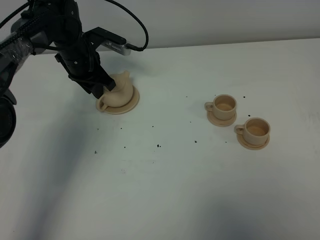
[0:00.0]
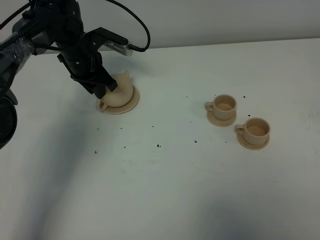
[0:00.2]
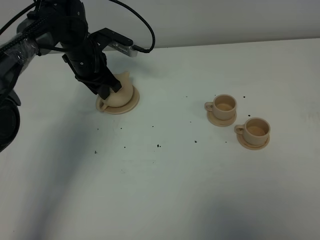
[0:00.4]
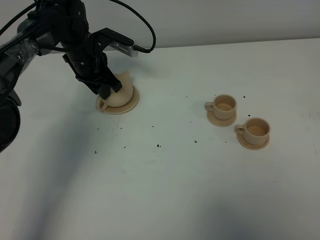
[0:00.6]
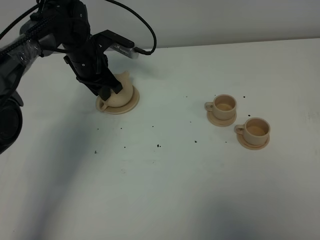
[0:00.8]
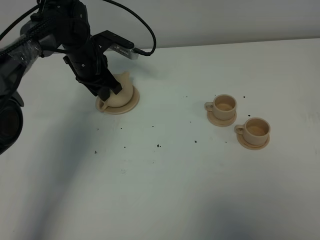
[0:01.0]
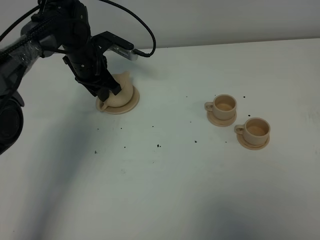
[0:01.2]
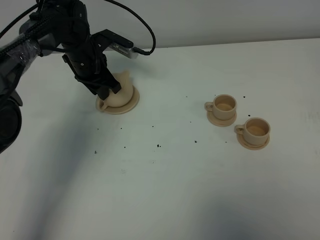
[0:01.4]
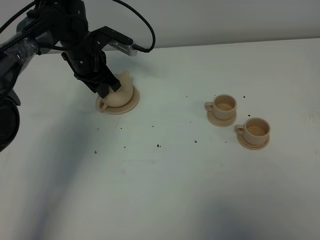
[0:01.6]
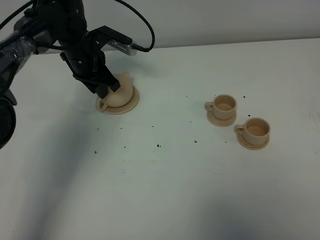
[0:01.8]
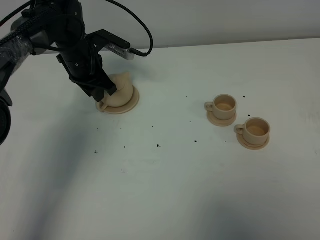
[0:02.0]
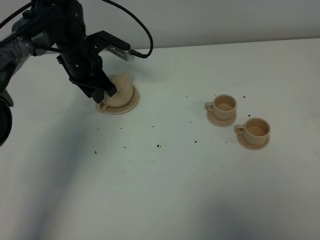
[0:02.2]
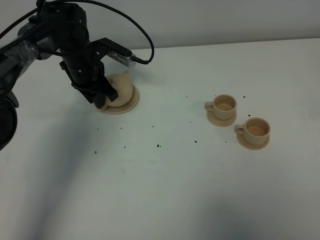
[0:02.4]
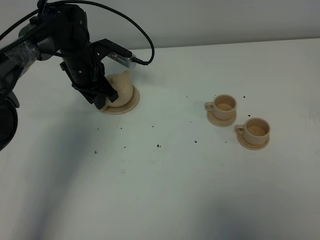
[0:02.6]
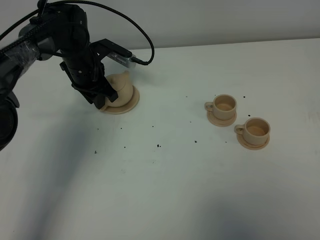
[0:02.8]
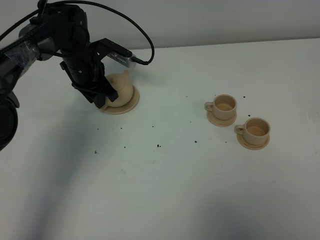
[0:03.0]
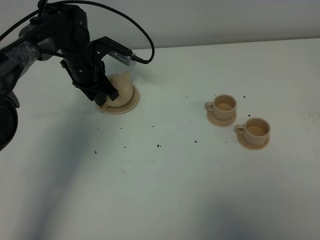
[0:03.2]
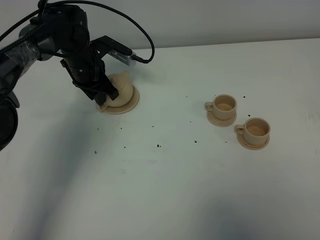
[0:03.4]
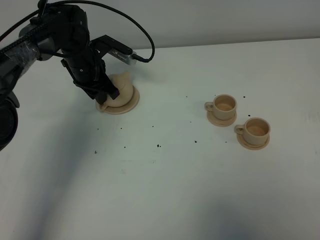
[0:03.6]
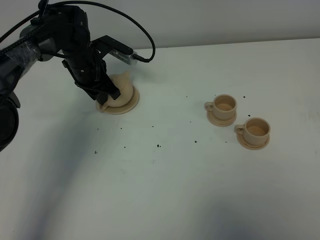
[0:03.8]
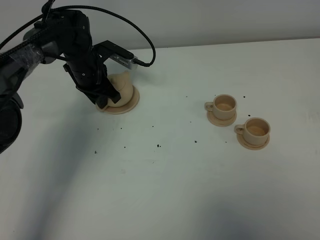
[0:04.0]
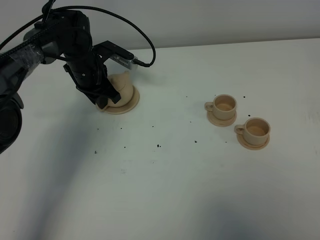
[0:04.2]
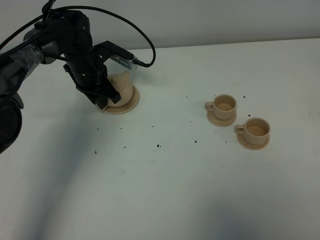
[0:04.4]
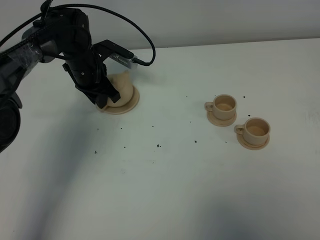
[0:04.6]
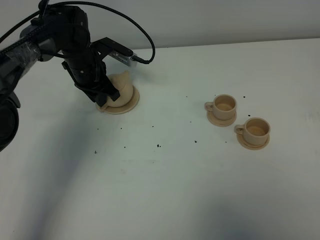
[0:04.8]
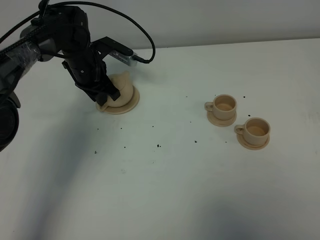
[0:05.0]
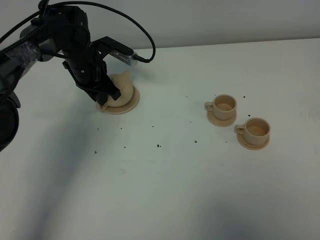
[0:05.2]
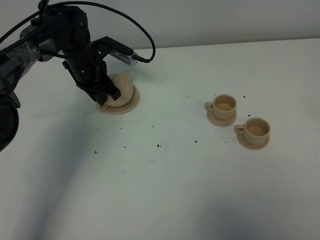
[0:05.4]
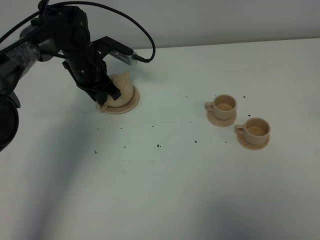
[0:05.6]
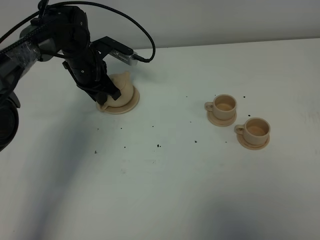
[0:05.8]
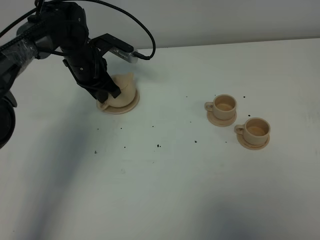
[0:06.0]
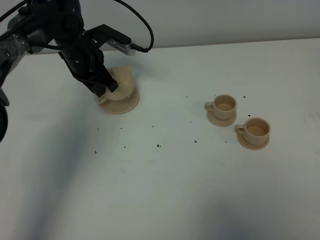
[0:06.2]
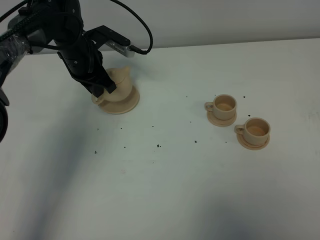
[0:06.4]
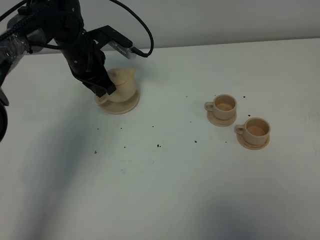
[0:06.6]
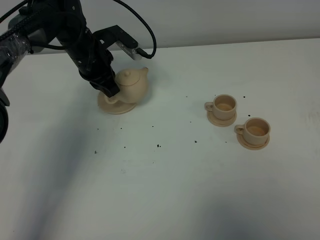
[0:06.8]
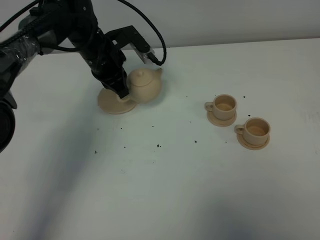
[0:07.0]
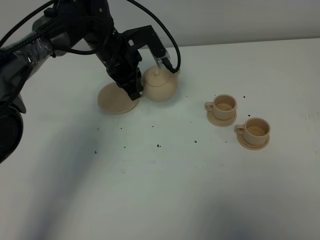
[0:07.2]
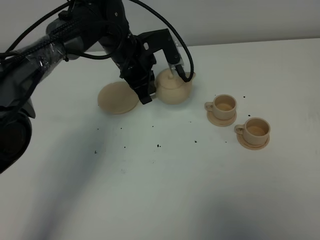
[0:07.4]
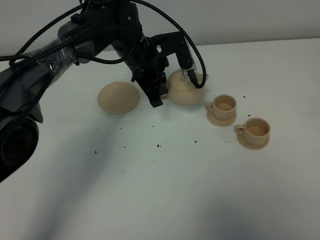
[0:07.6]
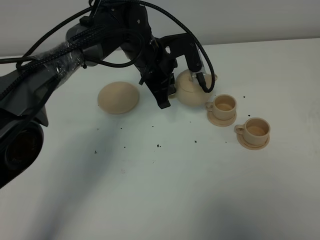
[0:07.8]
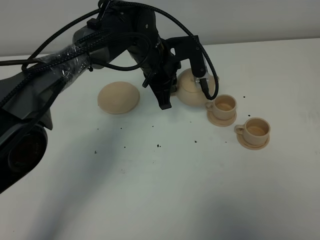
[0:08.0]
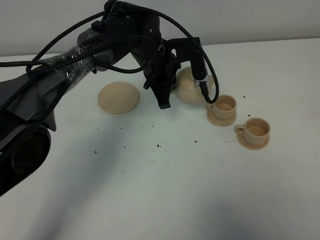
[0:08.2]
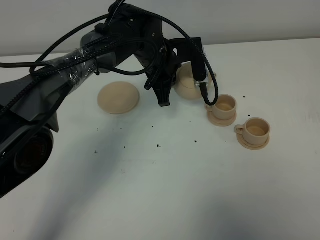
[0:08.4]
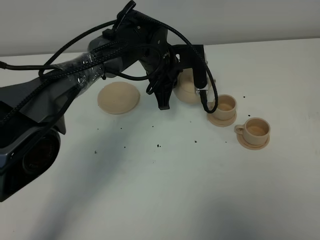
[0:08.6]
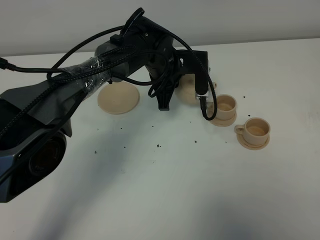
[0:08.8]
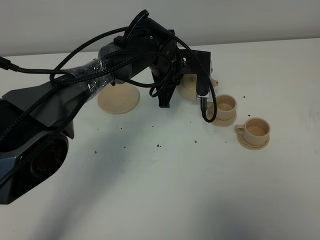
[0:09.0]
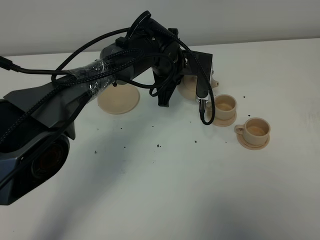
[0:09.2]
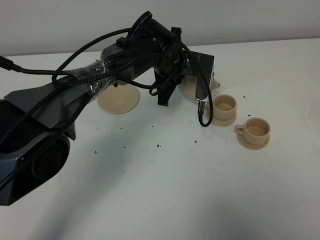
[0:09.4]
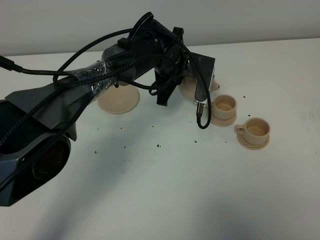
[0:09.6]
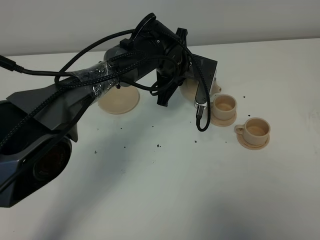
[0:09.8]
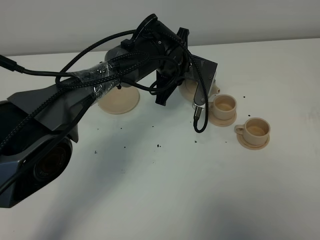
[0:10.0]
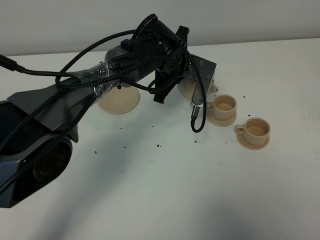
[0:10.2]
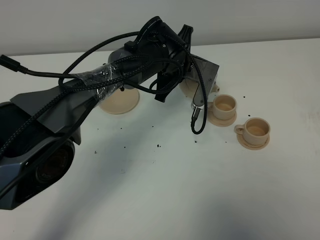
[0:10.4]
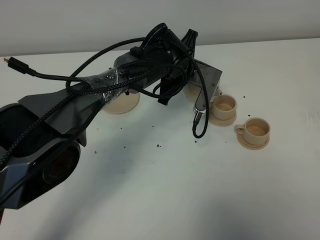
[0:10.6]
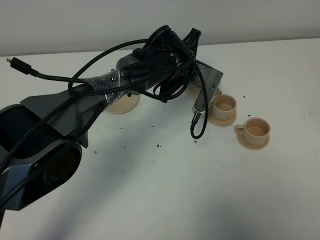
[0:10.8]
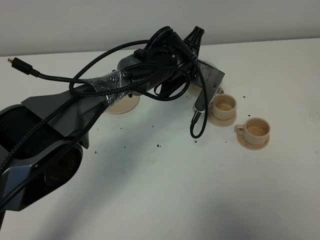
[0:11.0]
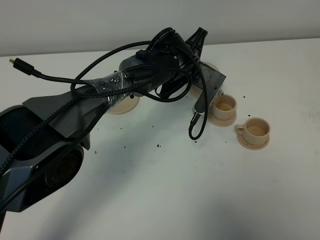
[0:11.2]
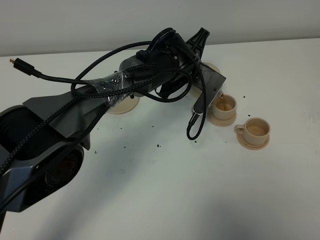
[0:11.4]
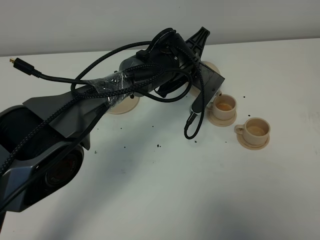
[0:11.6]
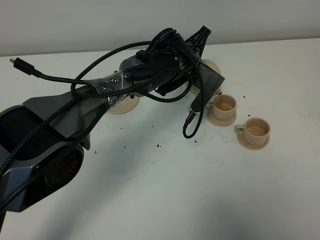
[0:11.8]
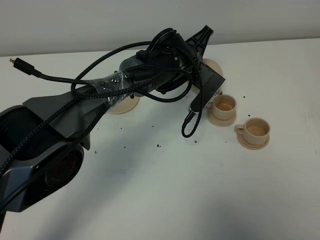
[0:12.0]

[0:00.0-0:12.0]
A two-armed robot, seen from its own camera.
Task of the whole recording: grasp the brown teapot and pour the tea into the two brown teacups one by one, put the brown teapot back in its original place.
Step, 0:00.0 to 0:06.0: Pick up the teapot with the left gripper.
0:00.0 to 0:03.0: The grippers make only small movements.
0:03.0 to 0:04.4: Neither gripper changes place.
0:04.4 to 0:06.0: The left gripper closes up.
0:06.0 to 0:07.6: The left gripper moves to the right, some 10 cm.
0:07.6 to 0:09.0: The left gripper changes place by roughly 5 cm.
0:10.4 to 0:12.0: The grippers move only a little.

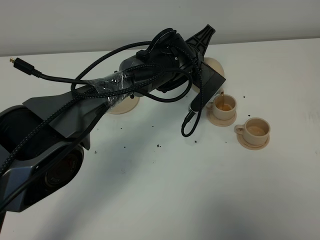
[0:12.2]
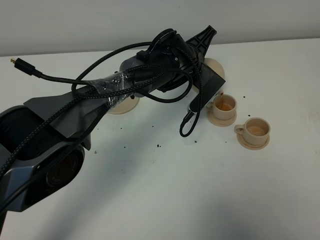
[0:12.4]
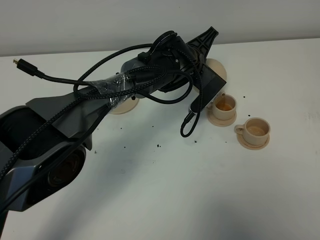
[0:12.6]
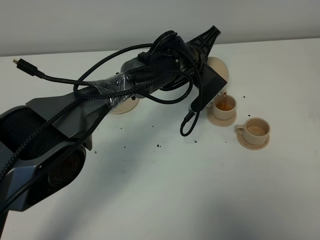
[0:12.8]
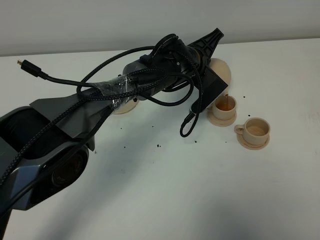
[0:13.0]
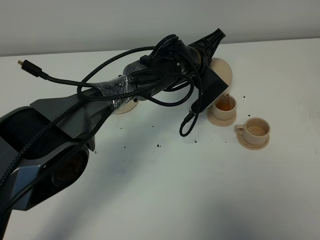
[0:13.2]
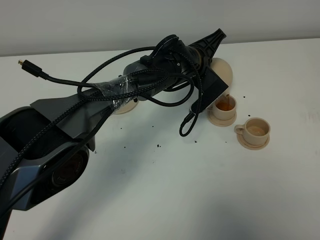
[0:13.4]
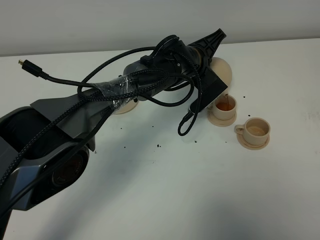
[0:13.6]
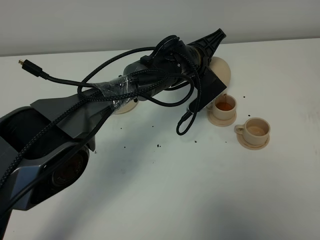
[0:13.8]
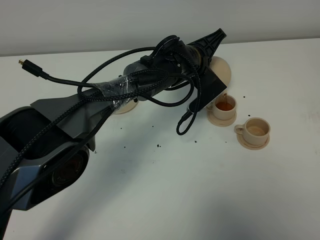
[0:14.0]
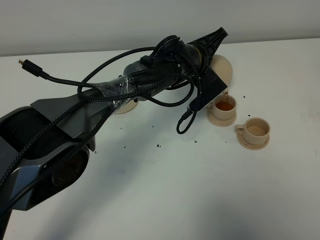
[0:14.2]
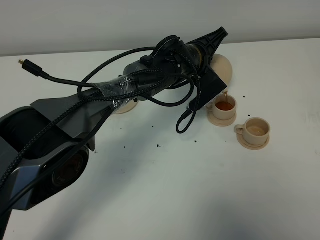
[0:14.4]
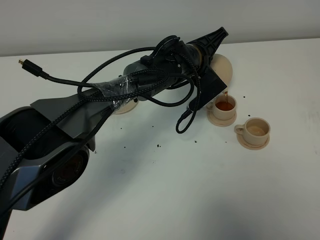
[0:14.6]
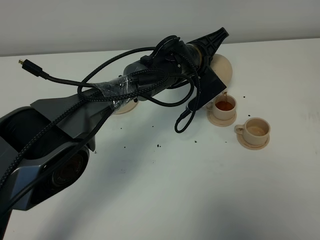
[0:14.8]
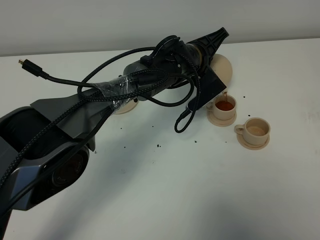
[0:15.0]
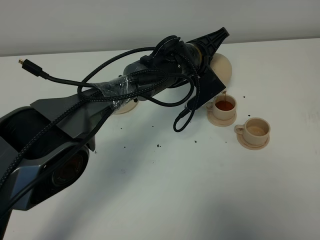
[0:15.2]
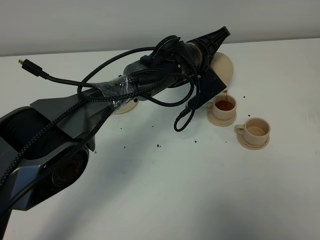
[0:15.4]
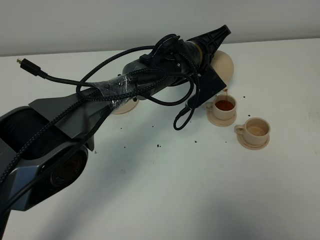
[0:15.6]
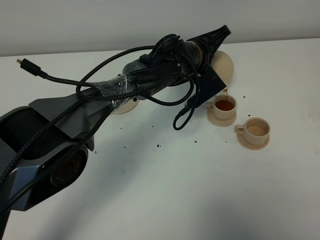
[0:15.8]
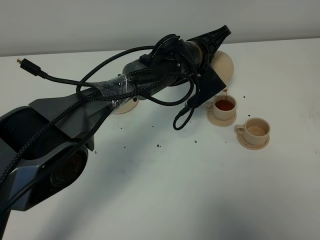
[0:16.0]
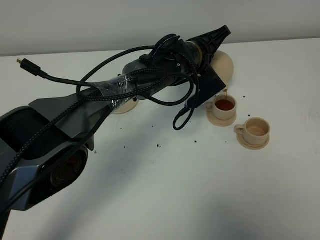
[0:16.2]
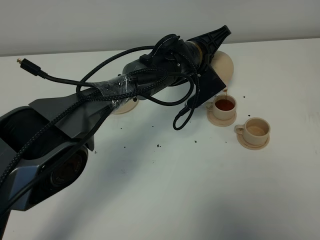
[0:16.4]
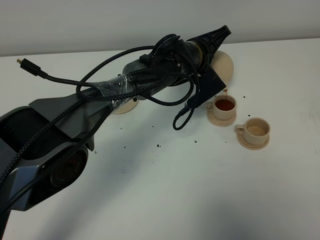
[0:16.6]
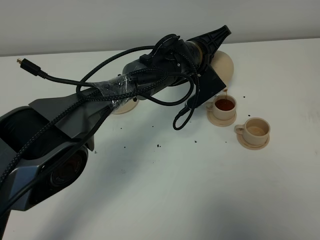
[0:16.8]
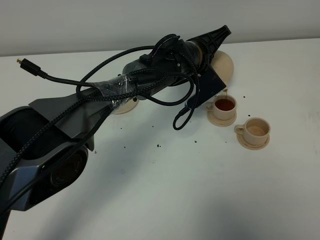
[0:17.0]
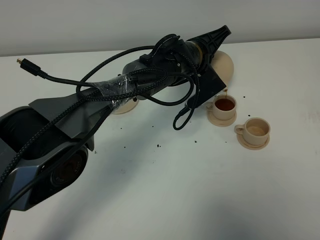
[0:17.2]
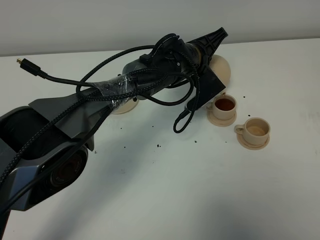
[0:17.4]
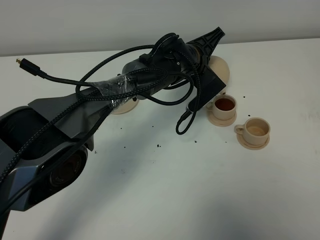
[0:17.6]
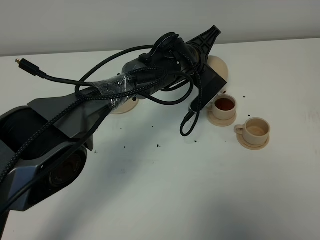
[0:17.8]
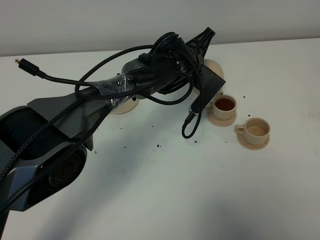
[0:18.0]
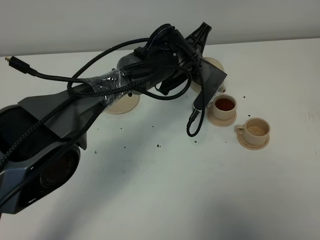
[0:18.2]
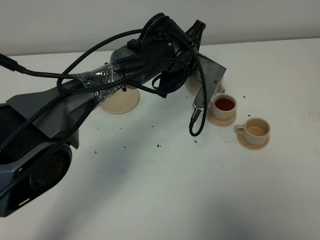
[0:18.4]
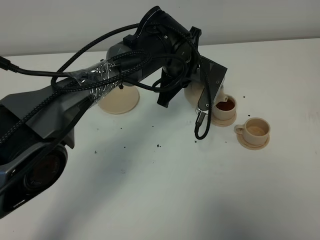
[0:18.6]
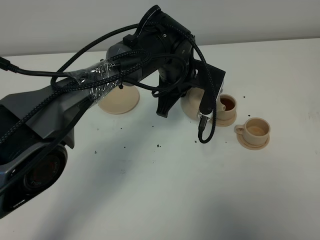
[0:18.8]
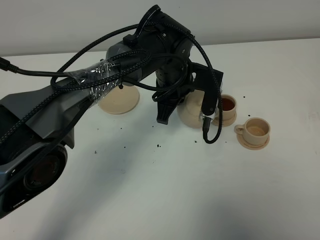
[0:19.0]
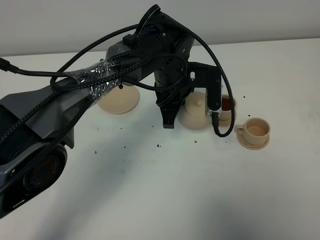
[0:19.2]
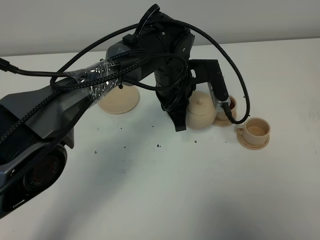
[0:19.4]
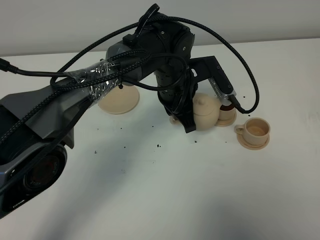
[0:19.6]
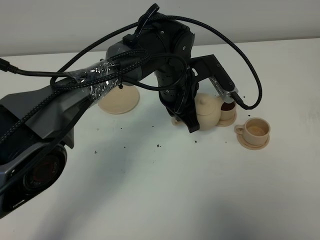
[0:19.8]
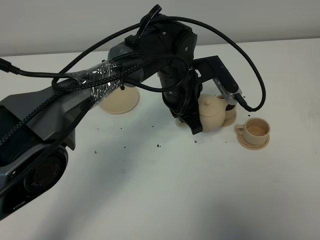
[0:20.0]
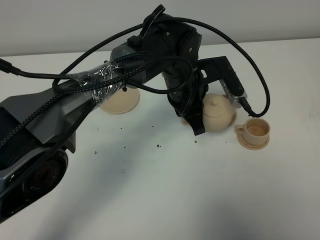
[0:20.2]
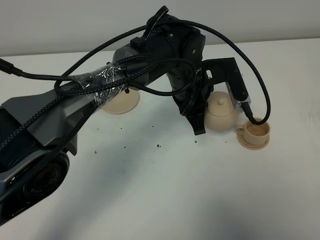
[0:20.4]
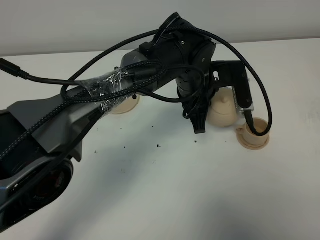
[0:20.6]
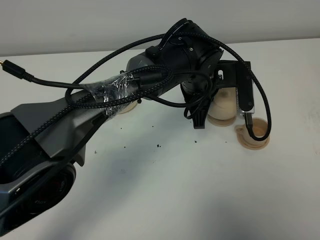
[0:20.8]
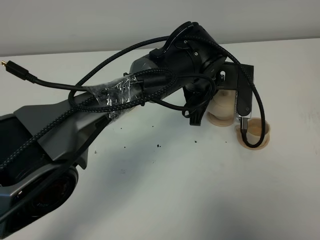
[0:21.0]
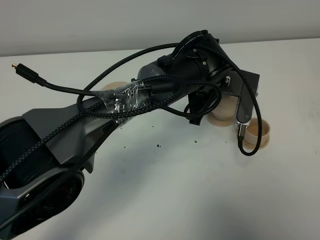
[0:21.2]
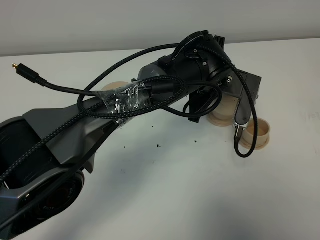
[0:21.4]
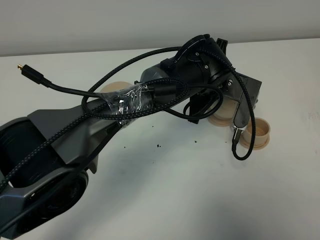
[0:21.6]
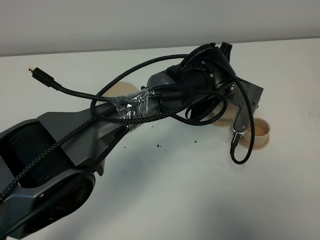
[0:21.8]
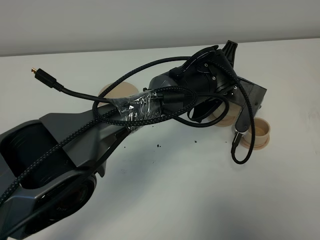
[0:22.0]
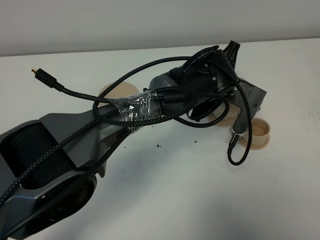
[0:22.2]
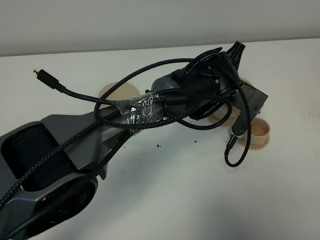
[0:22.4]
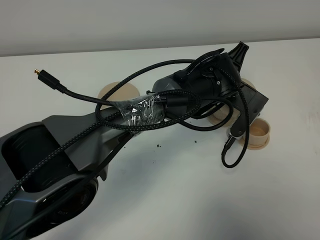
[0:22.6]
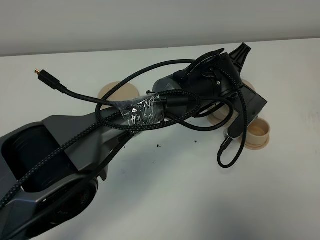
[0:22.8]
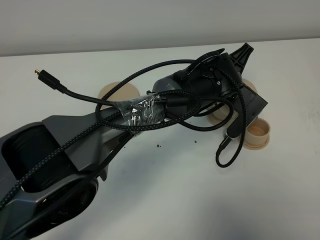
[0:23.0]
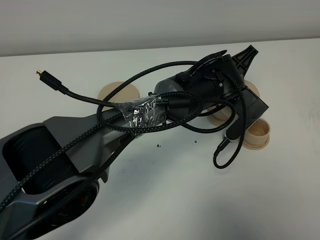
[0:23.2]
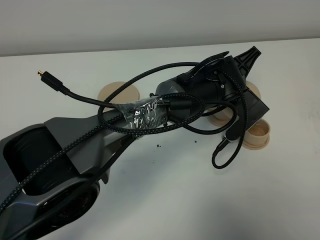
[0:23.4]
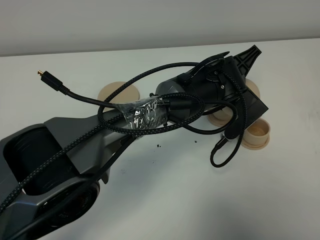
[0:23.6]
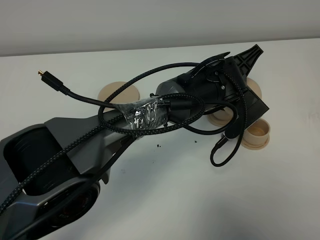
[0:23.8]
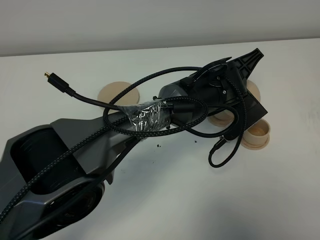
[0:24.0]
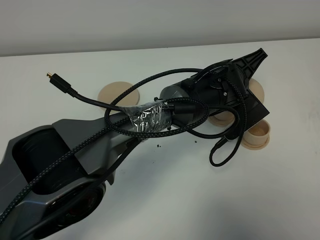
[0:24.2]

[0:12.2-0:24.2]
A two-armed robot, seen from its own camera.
Task of the whole recording: grasp the brown teapot and pour the tea into the two brown teacups one by one, put the brown teapot back in its original place.
Step, 0:12.2 to 0:18.2: Pour tea into the teacup with the left gripper.
0:12.2 to 0:13.8: There are only small adjustments of the grippers.
0:13.8 to 0:15.2: Both grippers stay put.
0:15.2 to 0:16.6: Neither gripper changes place.
0:18.2 to 0:19.8: The left gripper travels backward by some 5 cm.
0:19.8 to 0:21.2: The left gripper moves to the right, some 5 cm.
0:22.6 to 0:24.2: The grippers move only a little.
